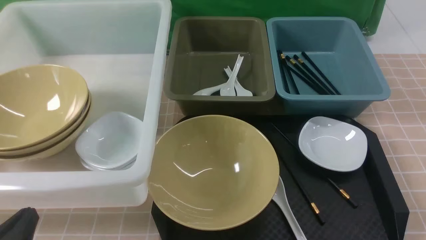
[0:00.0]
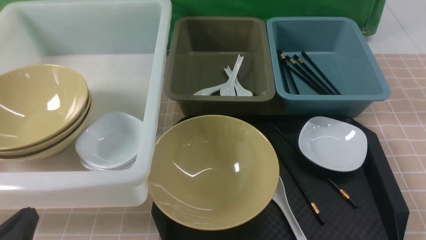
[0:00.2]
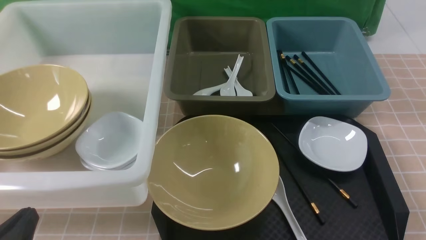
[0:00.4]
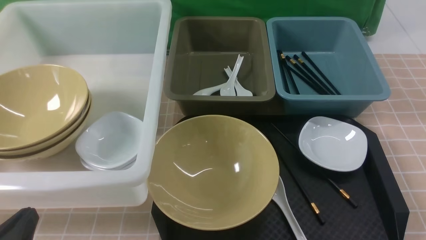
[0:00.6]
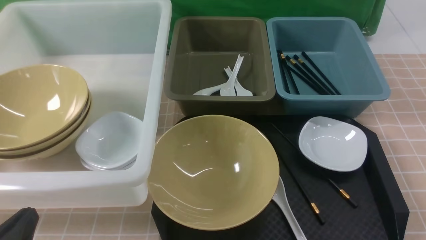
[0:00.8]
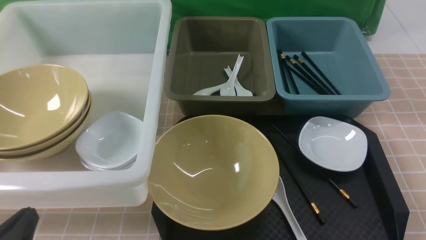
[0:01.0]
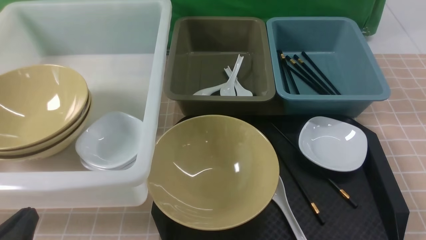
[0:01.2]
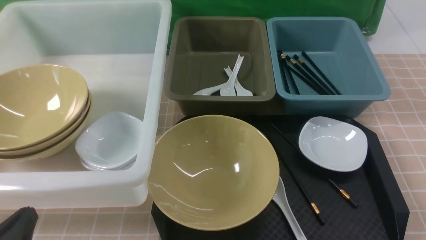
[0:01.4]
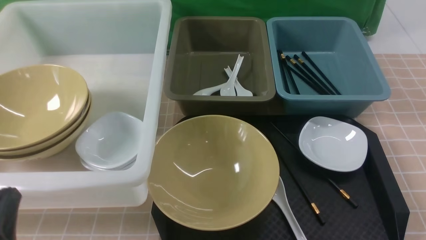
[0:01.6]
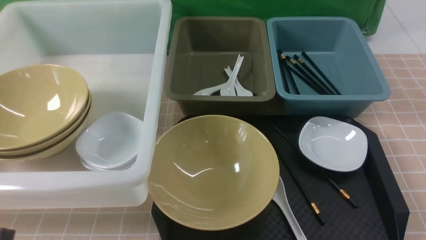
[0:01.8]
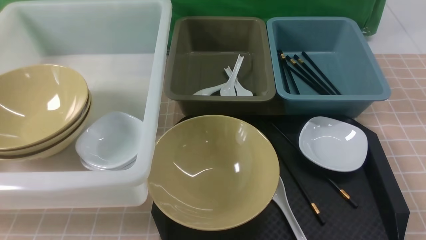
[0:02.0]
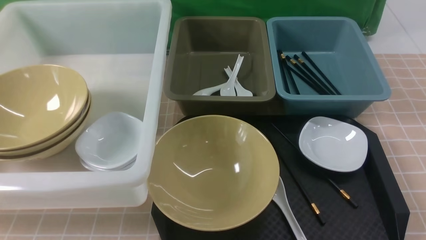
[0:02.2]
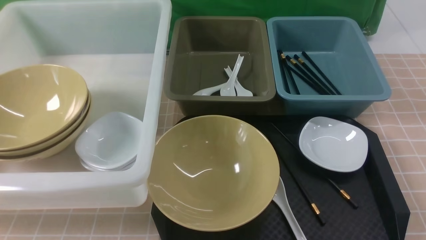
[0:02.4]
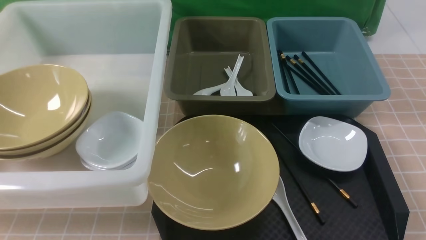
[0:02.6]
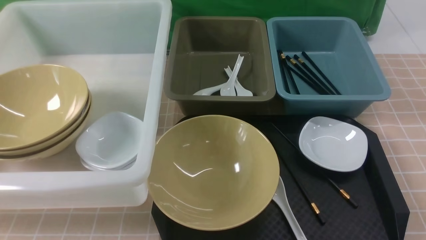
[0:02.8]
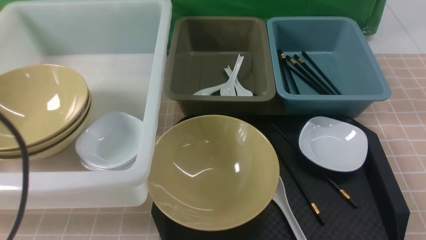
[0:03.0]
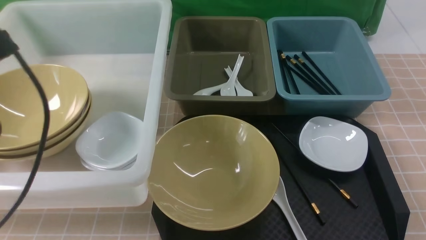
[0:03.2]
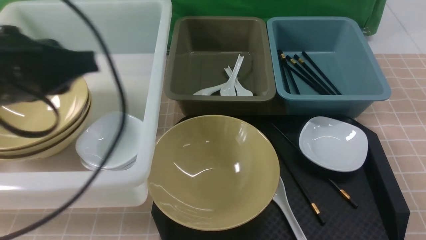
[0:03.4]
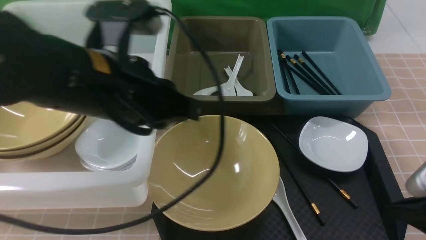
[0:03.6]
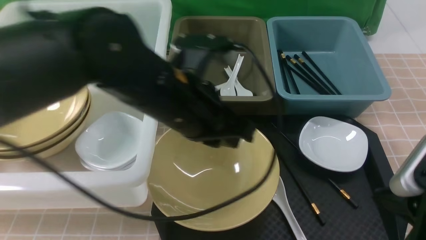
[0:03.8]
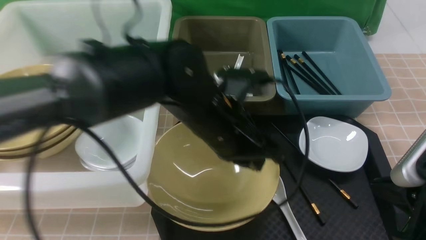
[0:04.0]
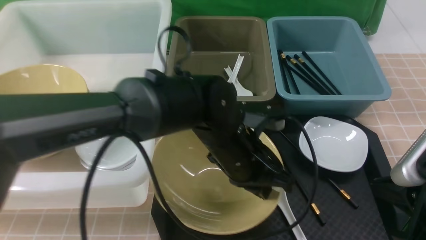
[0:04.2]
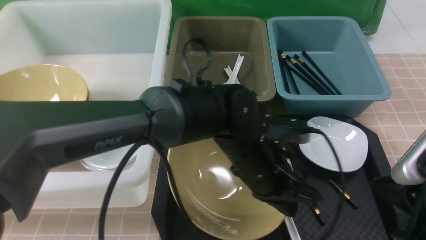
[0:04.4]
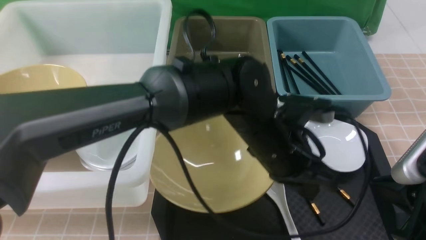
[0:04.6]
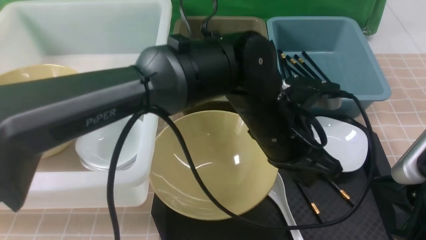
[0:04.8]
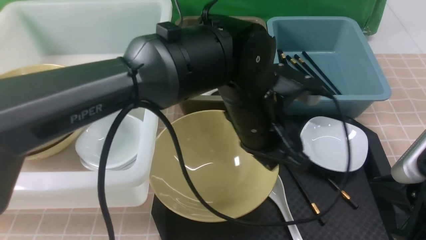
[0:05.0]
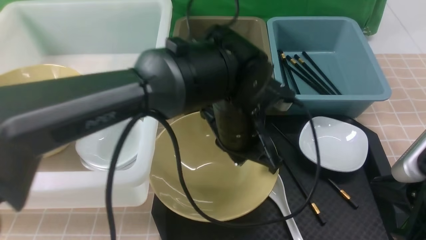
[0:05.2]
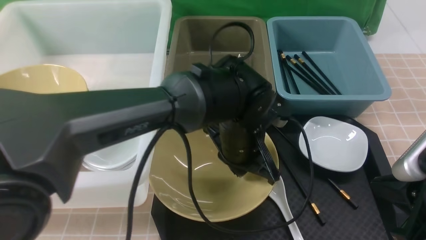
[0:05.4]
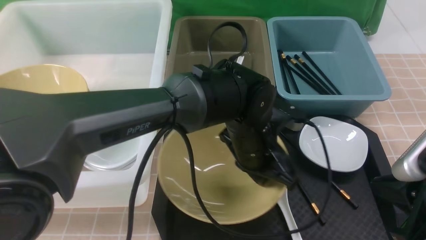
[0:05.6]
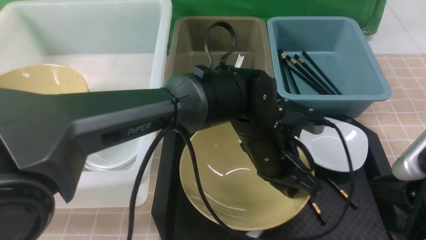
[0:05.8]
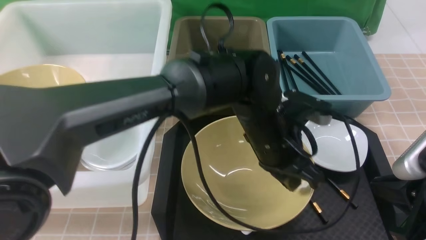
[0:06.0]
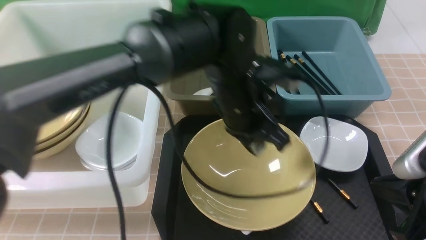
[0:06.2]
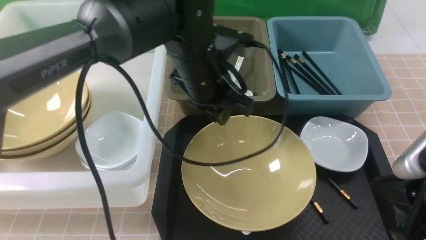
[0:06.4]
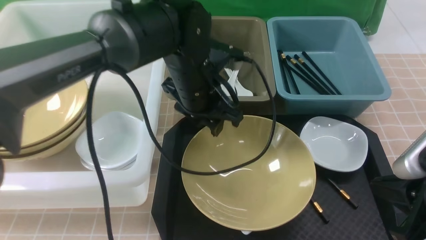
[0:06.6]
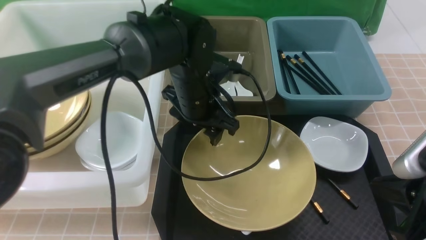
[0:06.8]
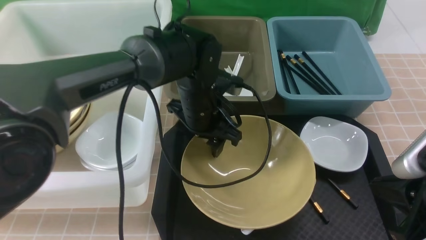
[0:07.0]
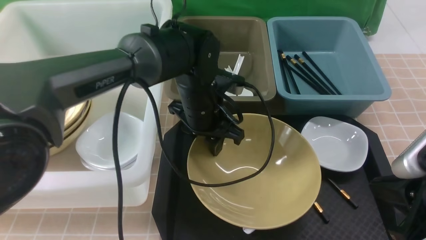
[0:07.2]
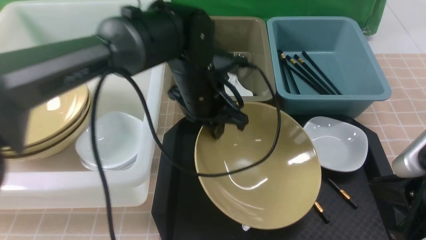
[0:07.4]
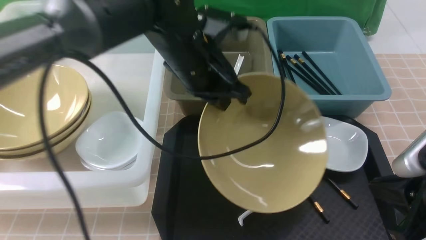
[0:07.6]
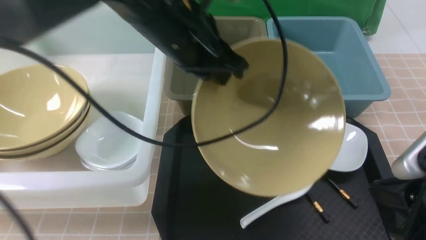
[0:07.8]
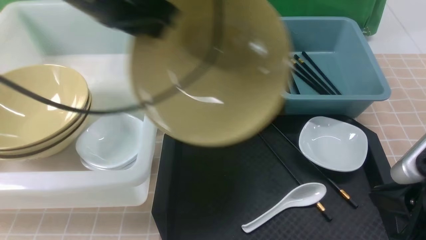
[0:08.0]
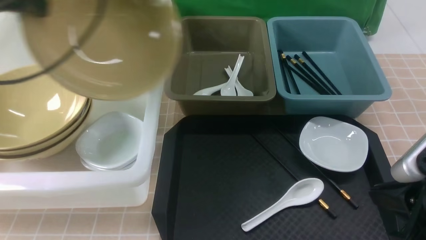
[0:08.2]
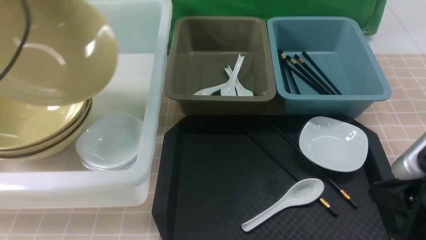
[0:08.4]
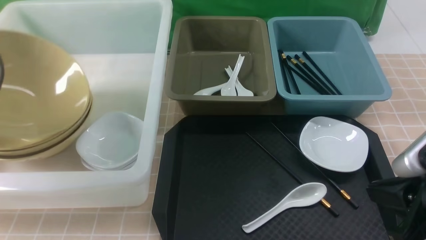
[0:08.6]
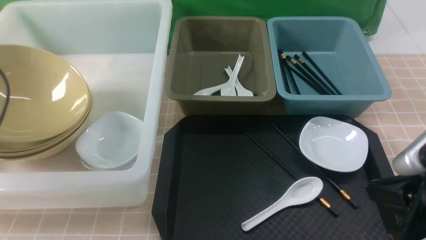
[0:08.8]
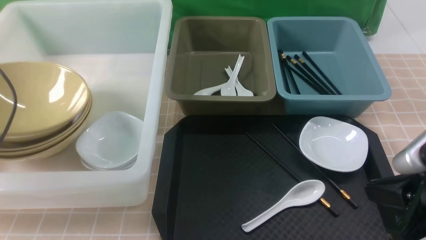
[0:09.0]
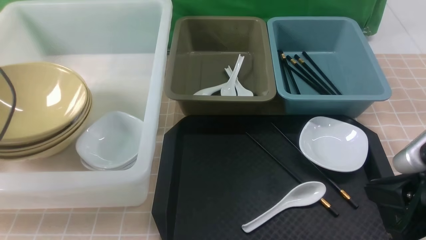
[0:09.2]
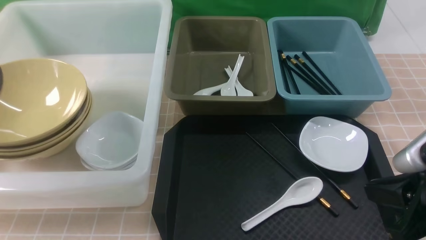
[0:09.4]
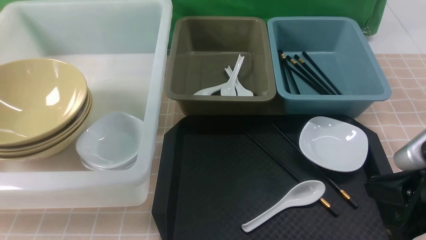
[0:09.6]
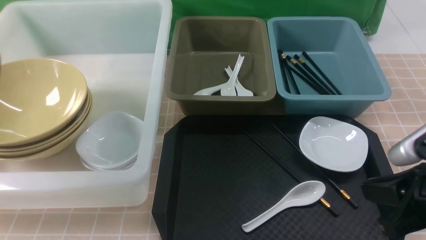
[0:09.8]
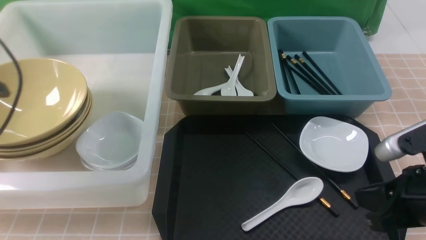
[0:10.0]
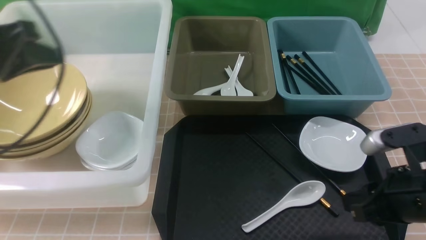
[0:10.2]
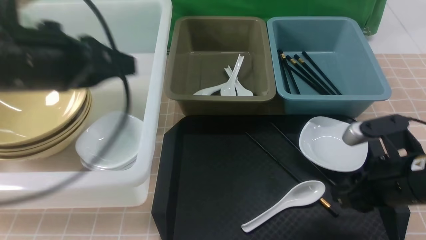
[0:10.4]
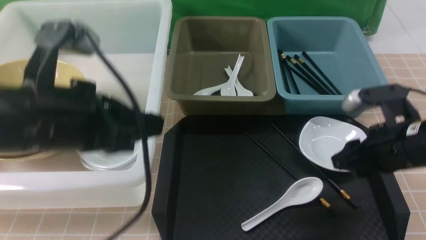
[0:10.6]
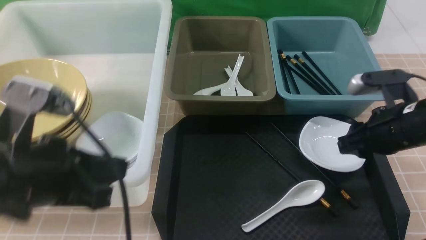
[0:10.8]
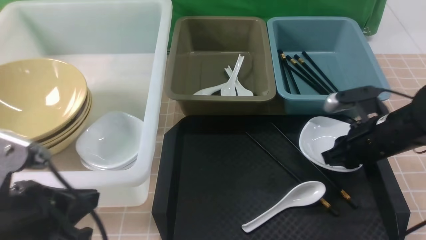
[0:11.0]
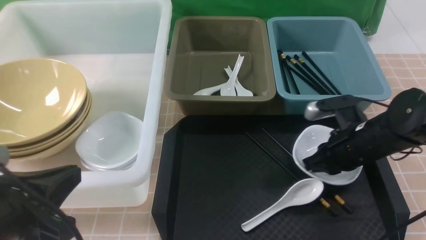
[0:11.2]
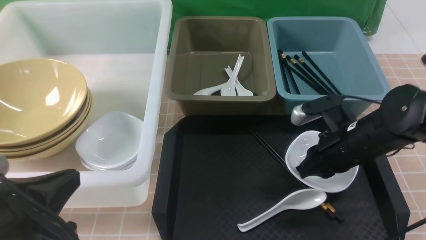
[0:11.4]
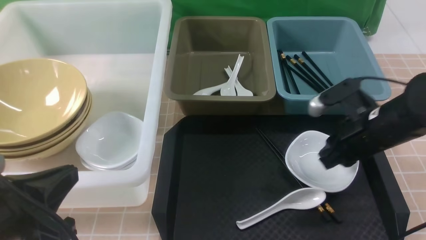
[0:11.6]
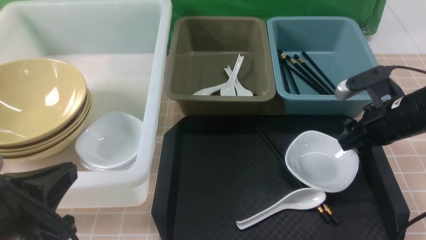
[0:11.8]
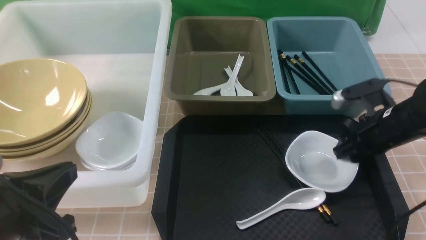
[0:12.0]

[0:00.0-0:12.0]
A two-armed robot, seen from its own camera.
Task of the whole recording: on brown table put chopsticks spoon bowls plates into blue grey white boxes.
Step, 0:00.0 to 0:07.8: use the left arm to grab the yellow noodle bowl on the left.
Step, 0:08.0 to 0:09.6: use the left arm to put the noodle bowl into the large storage box on the left.
0:00.0 to 0:01.6: The grippers stay close to where they were, moving slightly.
0:01.6 to 0:03.0: The left gripper heads upward and forward, covering some 20 cm.
0:03.0 to 0:04.4: The right gripper is displaced to the left and downward by approximately 10 cm. Meanwhile the left gripper is displaced to the right and downward by roughly 35 cm.
0:06.0 to 0:07.6: The left gripper goes approximately 15 cm to the left and upward, and opens, then closes once more.
0:07.6 to 0:09.0: The left gripper heads to the left, covering roughly 35 cm, and opens.
0:09.0 to 0:10.4: The left gripper heads to the right, covering approximately 20 cm, and closes. The right gripper shifts roughly 5 cm forward, and opens.
0:10.4 to 0:12.0: The left gripper heads backward and downward, covering roughly 15 cm; the right gripper is displaced forward by roughly 10 cm, and closes, then opens again.

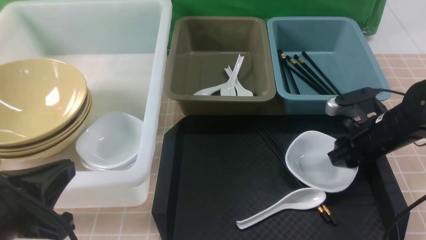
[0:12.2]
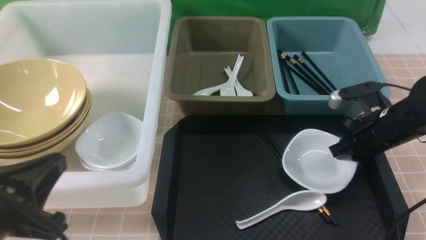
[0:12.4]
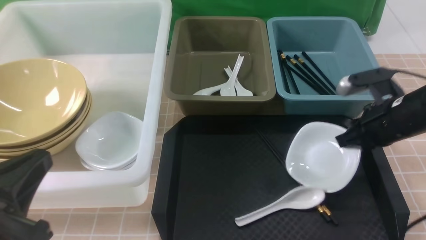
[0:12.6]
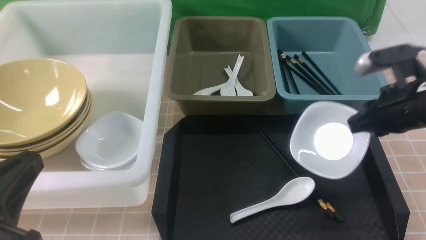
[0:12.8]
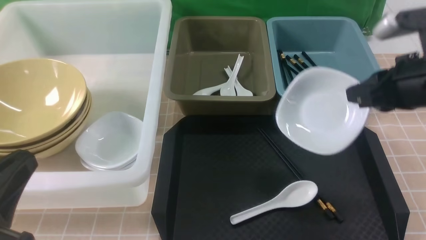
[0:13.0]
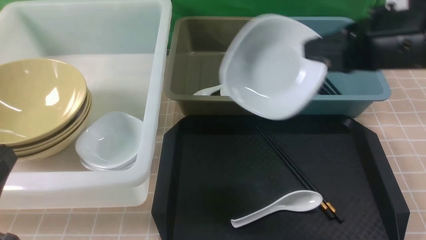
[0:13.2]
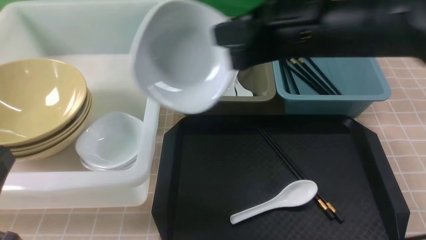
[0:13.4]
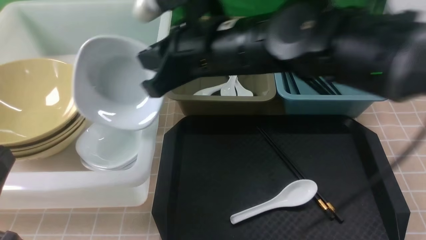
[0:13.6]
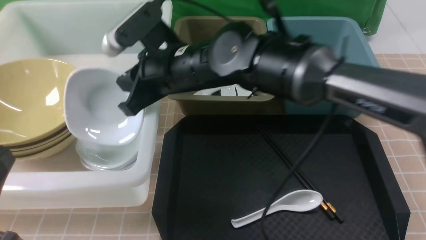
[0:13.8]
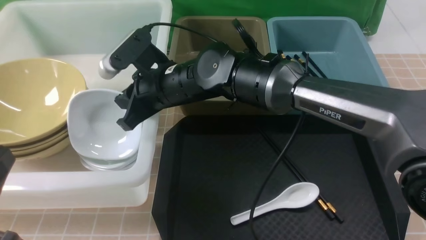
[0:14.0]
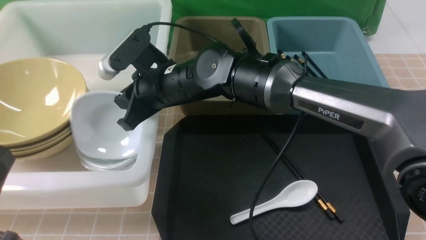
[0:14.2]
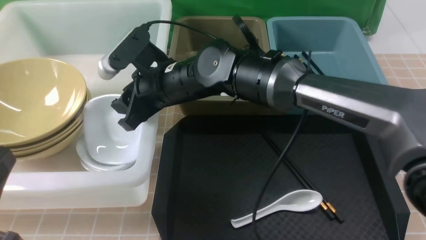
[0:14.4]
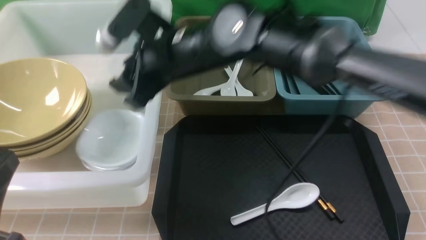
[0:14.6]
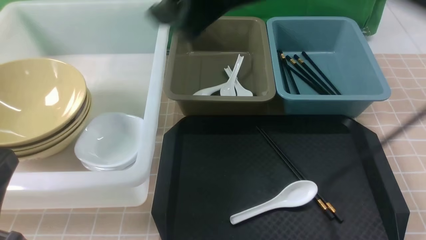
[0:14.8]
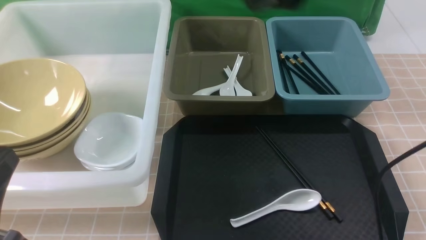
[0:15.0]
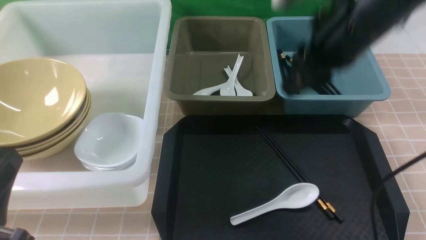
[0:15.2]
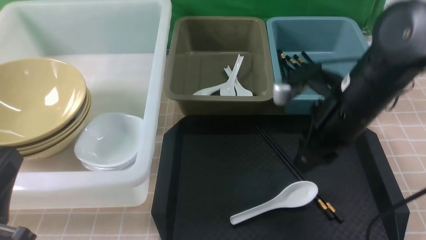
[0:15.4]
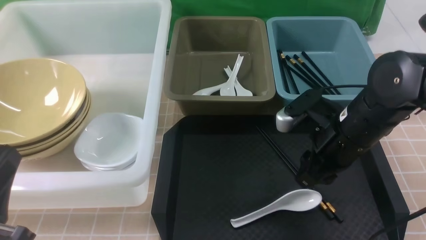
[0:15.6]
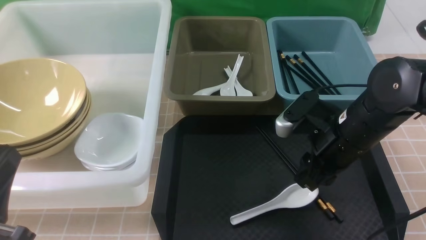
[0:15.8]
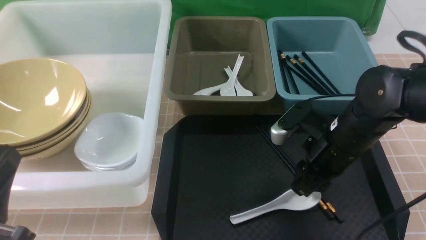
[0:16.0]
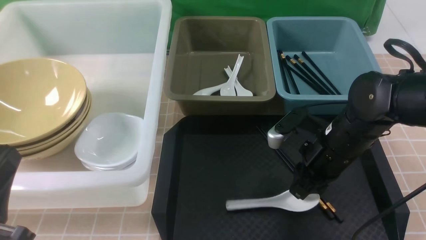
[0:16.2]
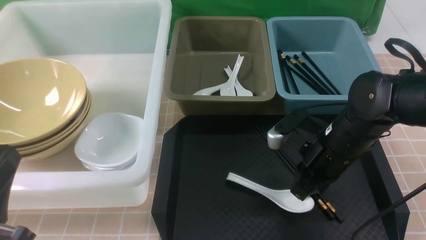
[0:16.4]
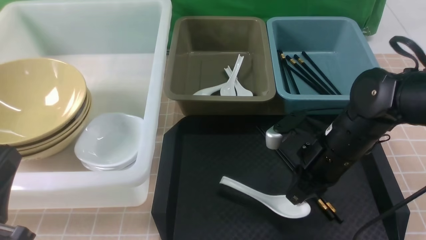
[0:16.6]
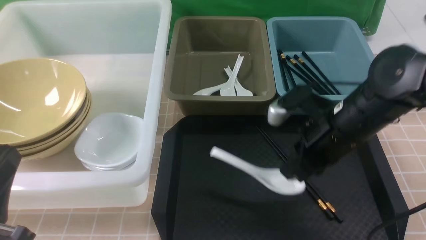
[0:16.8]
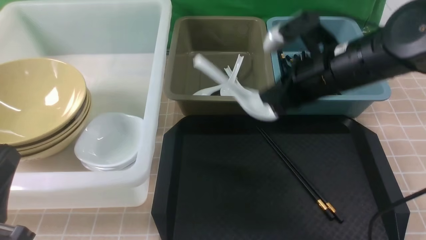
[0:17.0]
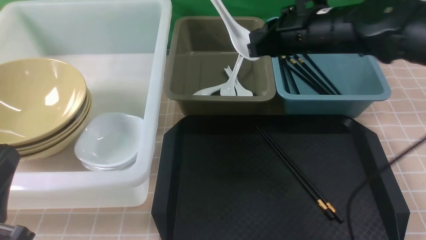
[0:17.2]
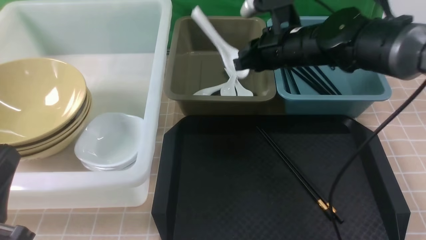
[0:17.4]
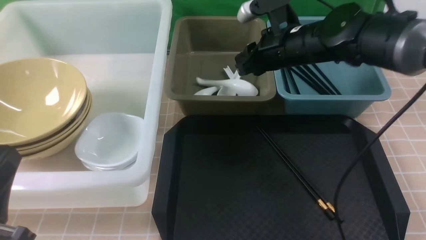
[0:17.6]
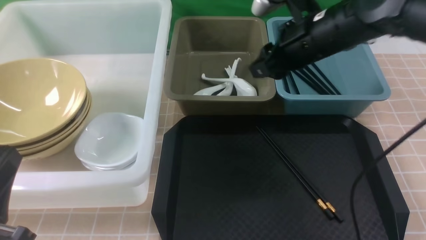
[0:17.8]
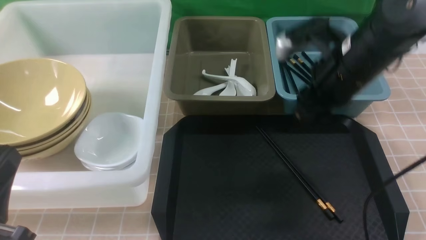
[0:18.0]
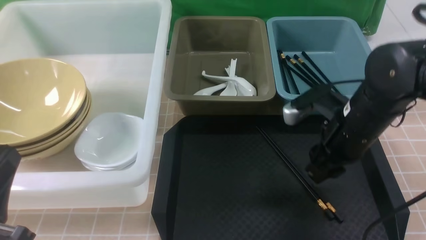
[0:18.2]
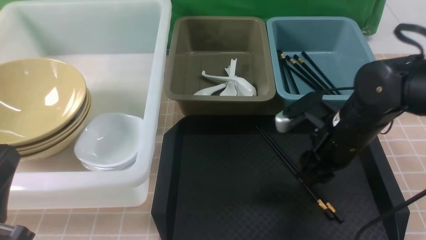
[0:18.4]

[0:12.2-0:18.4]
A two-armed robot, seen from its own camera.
Task of the whole recording: on brown table put chopsticks spoon bowls plates into blue grey white boxes.
Step, 0:13.0 to 0:14.8: use the right arm to put the plate into the large storage box on the left.
Step, 0:15.0 to 0:16.6: use the right arm to grab the soup spoon in the middle.
Step, 0:16.8 to 0:17.8: use the right arm to put the soup spoon into the small storage box in the middle.
0:12.2 to 0:13.8: The right gripper goes roughly 30 cm to the left, and closes up.
0:13.8 to 0:15.4: The right gripper is displaced to the right by some 20 cm, and opens.
0:15.4 to 0:16.8: The right gripper reaches about 10 cm downward, then returns, and closes.
0:16.8 to 0:18.4: The right gripper goes forward and returns, about 10 cm each way, and opens up.
